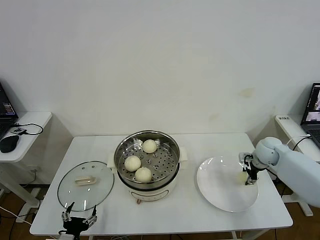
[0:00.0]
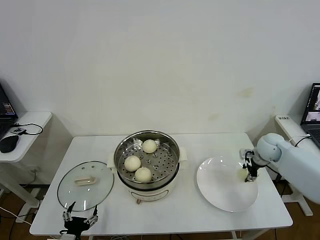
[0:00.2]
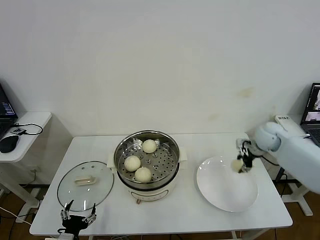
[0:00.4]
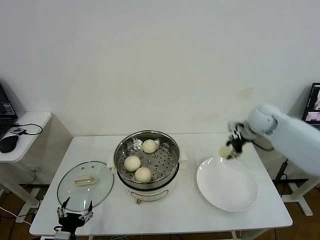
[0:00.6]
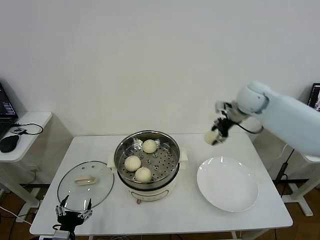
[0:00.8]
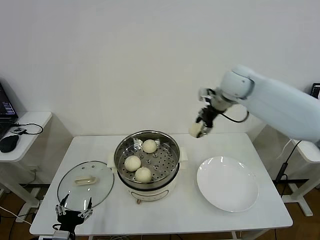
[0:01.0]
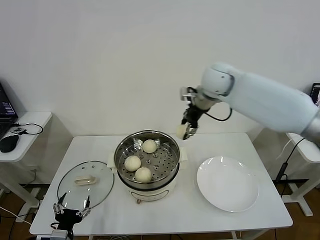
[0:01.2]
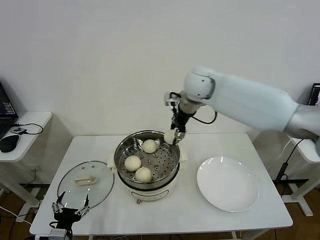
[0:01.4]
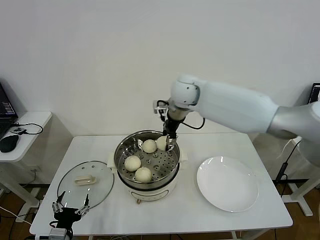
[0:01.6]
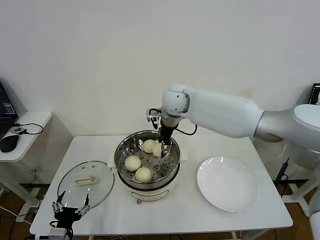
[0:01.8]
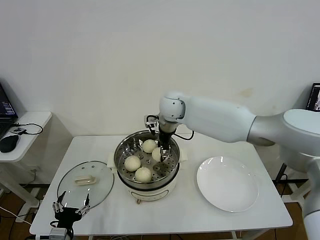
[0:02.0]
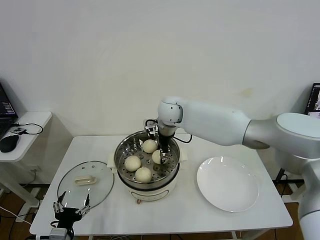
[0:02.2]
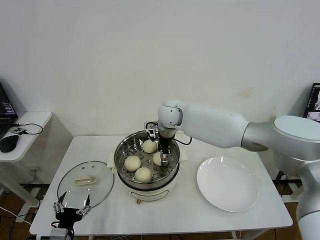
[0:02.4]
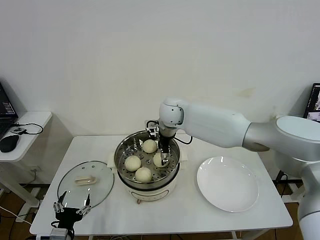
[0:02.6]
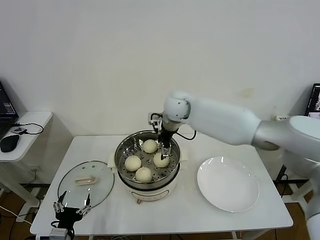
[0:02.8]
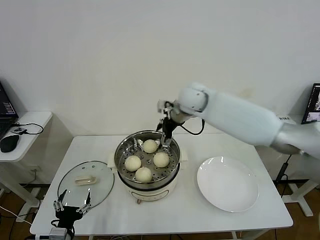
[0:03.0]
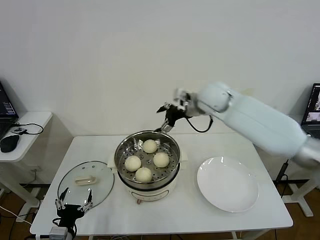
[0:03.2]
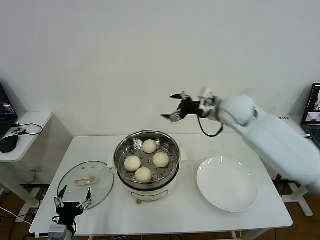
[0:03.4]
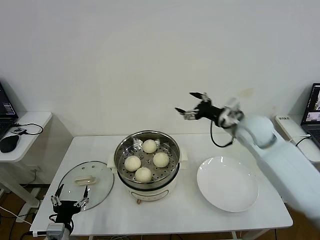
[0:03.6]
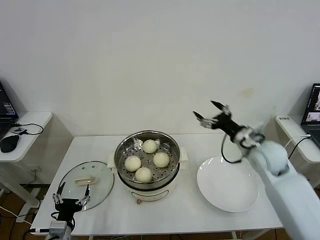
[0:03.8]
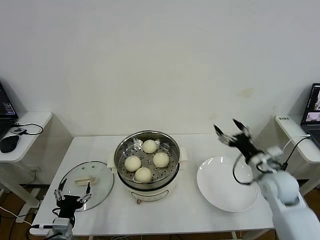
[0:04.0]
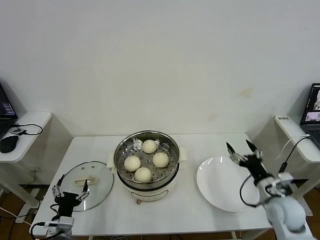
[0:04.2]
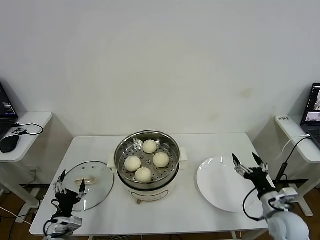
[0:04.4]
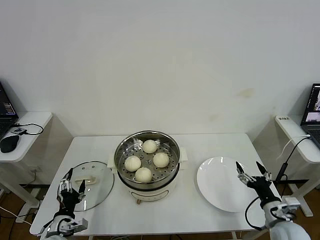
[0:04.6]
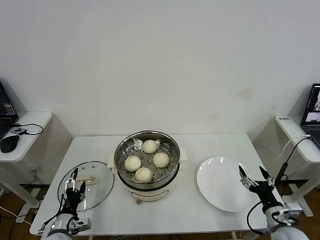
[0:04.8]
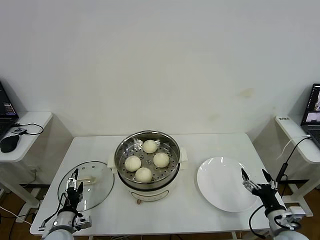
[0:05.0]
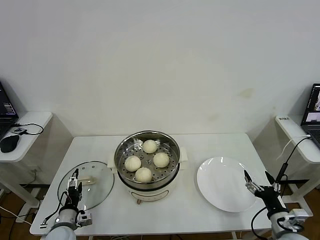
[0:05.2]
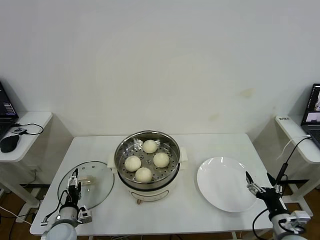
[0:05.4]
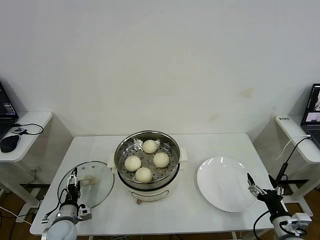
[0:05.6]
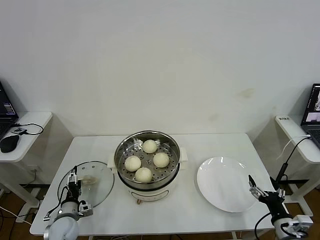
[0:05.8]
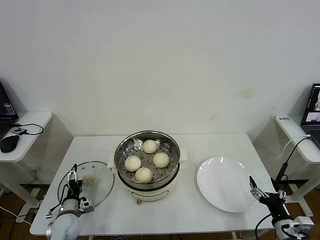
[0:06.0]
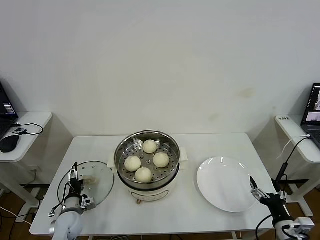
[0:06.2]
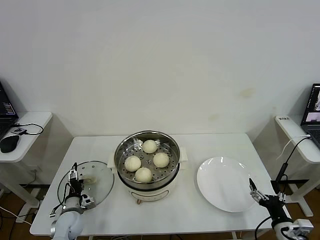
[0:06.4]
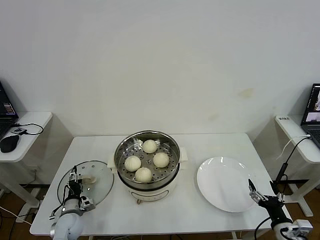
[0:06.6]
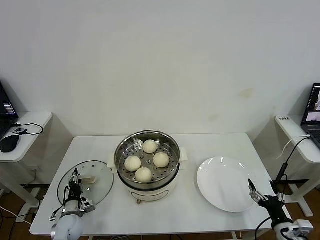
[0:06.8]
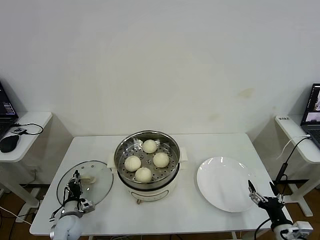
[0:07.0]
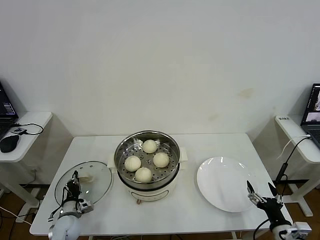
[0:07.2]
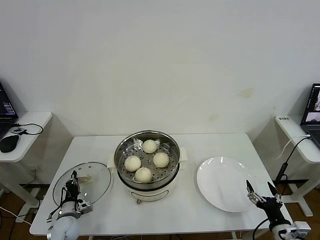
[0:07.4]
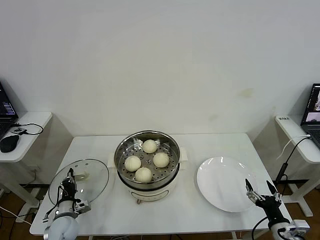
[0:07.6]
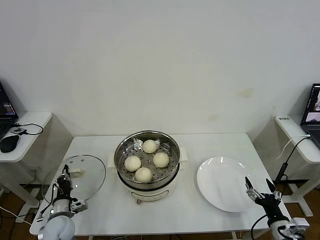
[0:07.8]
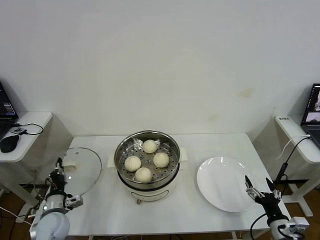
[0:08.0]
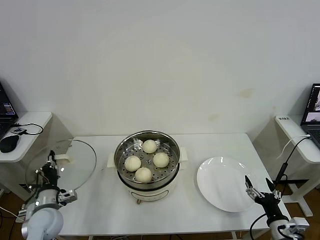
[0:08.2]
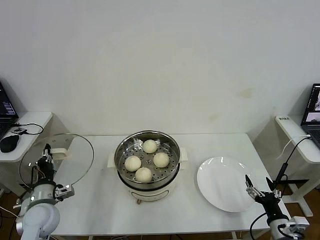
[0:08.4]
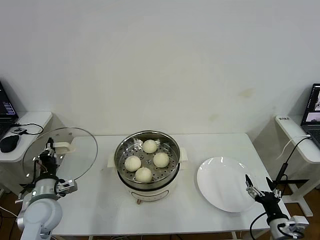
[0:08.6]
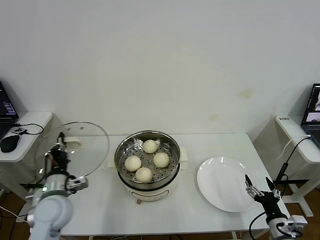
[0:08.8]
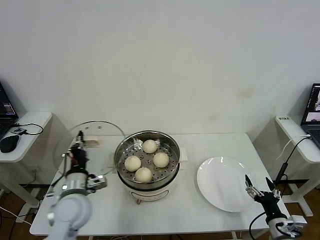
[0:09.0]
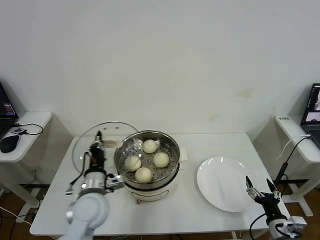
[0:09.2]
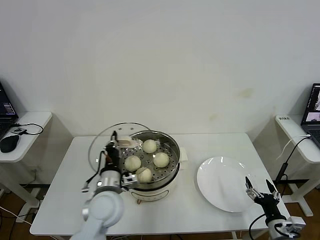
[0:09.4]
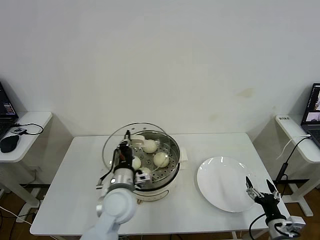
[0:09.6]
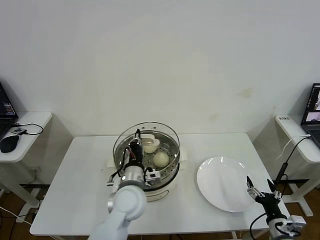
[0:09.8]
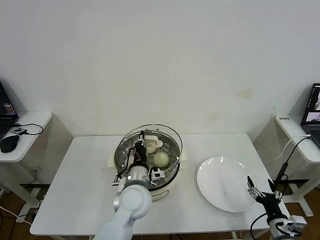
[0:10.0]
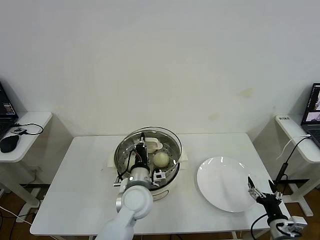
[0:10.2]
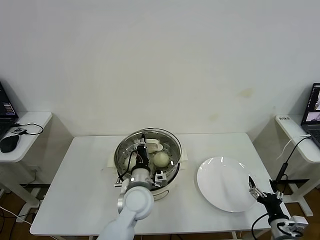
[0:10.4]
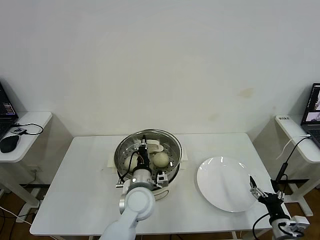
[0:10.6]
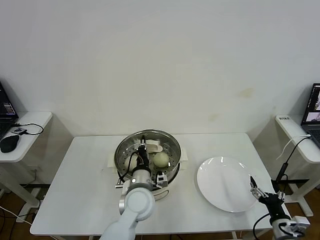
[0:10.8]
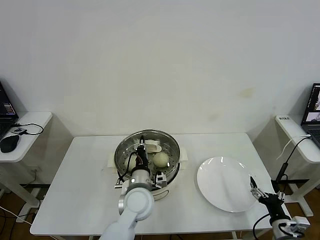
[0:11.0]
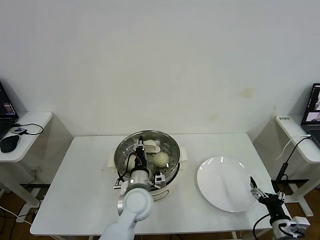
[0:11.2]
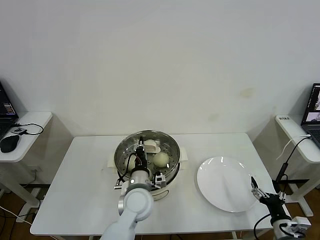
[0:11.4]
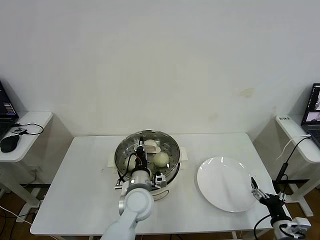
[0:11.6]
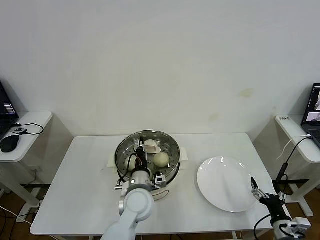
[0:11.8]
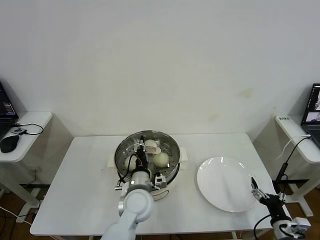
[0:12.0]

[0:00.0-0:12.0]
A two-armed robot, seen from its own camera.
Step, 0:00.0 to 0:02.4: Place the baozi on the steamer with right gripper.
Step, 0:02.6 to 0:07.2: Grasp the pot lid with left gripper.
Step, 0:07.4 to 0:12.0: Place the pot lid on the steamer with left gripper.
0:00.0 to 0:01.6: The right gripper goes roughly 40 cm to the left and upward.
0:01.6 to 0:03.0: The right gripper opens up.
0:03.0 to 0:04.4: The right gripper goes approximately 50 cm backward, to the right and downward. Meanwhile the left gripper shifts by some 5 cm.
0:04.4 to 0:06.0: The right gripper goes some 5 cm backward. Meanwhile the left gripper is displaced forward and downward by some 10 cm.
0:06.0 to 0:07.6: The left gripper closes up.
0:07.6 to 0:09.0: The left gripper moves upward and to the right, roughly 20 cm.
0:09.0 to 0:10.4: The left gripper is displaced to the right by about 20 cm.
0:10.4 to 0:12.0: The grippers stay close to where they were, moving slightly.

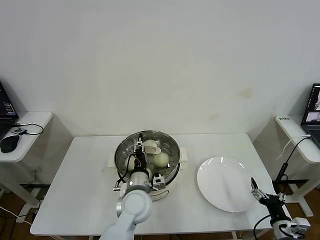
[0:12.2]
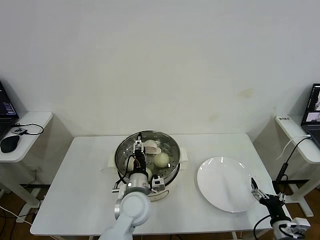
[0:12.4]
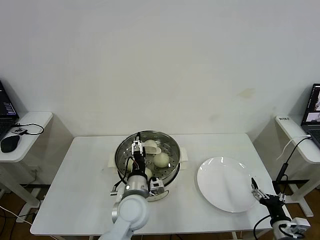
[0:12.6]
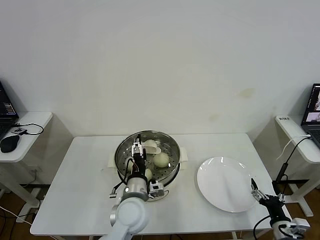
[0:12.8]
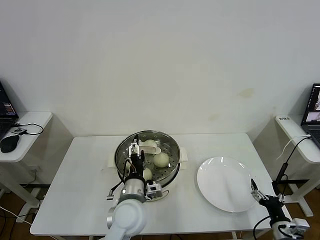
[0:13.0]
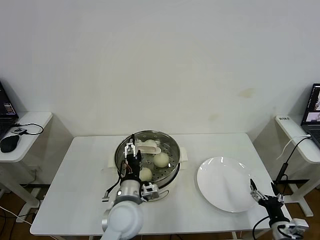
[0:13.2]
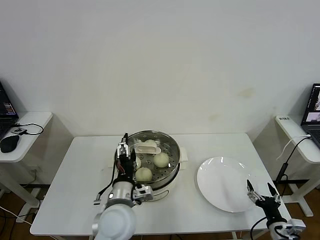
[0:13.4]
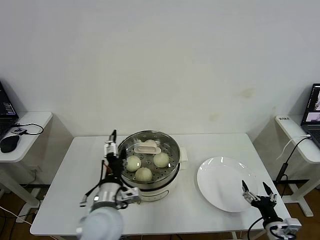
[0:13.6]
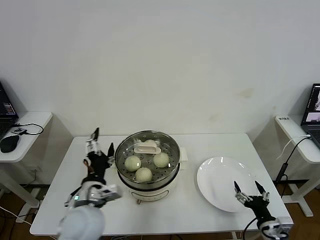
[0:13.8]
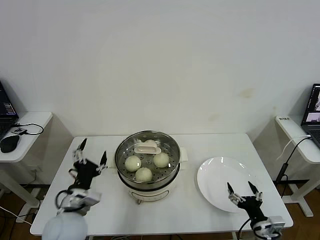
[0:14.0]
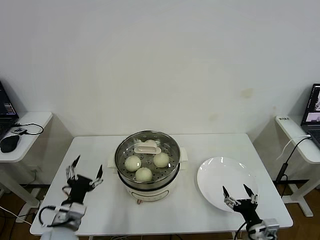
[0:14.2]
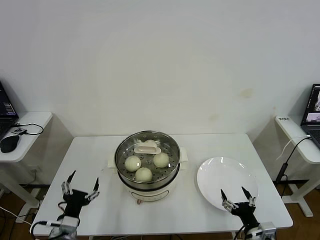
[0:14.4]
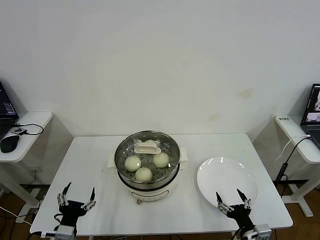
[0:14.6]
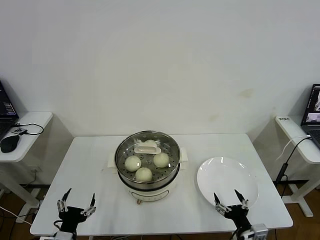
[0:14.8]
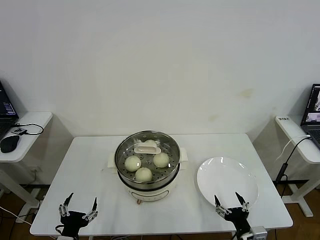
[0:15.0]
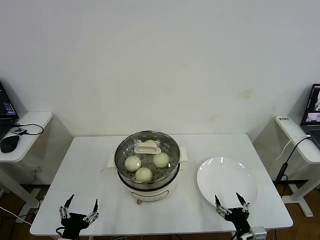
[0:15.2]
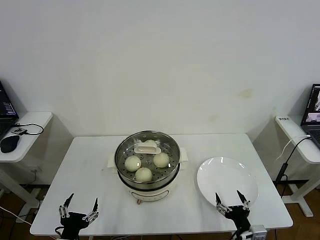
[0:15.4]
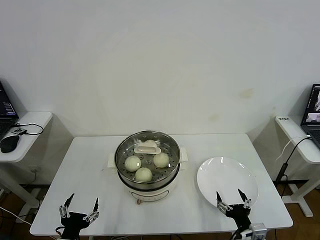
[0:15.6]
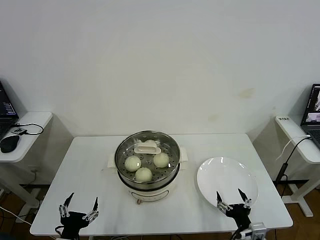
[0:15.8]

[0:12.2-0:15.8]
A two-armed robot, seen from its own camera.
0:12.2 to 0:14.0: The left gripper goes approximately 20 cm to the left and backward, and opens its fingers. The right gripper heads to the left, covering some 5 cm.
0:14.0 to 0:15.8: The right gripper is displaced to the left by some 5 cm; the left gripper travels backward and downward by some 15 cm.

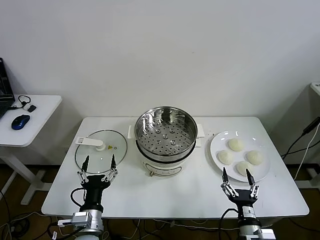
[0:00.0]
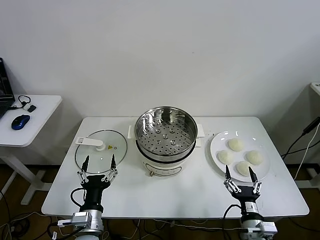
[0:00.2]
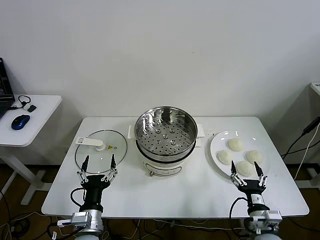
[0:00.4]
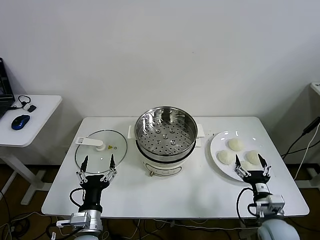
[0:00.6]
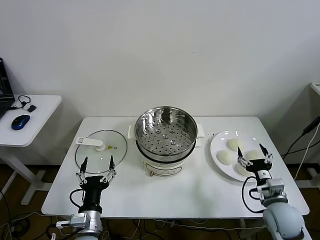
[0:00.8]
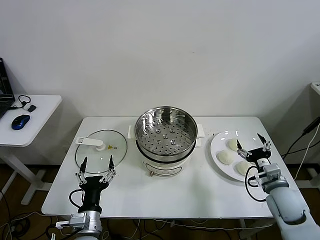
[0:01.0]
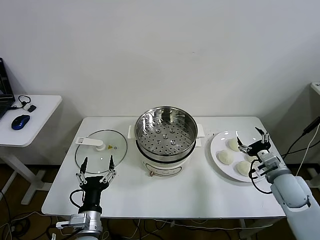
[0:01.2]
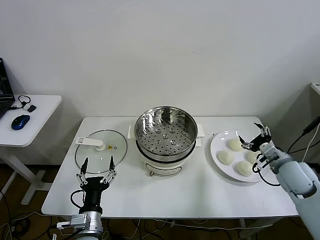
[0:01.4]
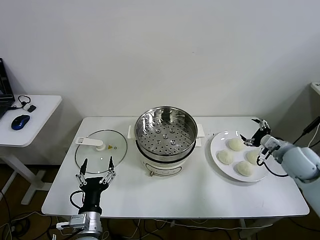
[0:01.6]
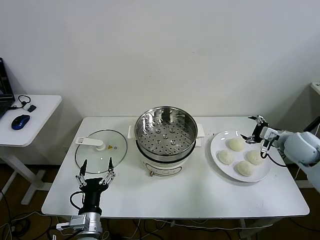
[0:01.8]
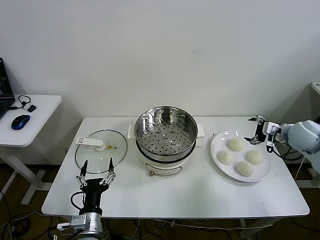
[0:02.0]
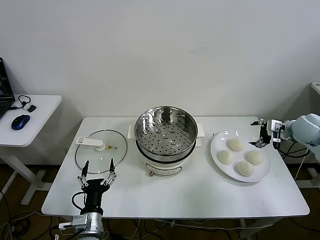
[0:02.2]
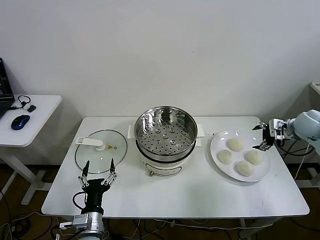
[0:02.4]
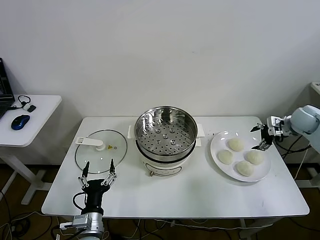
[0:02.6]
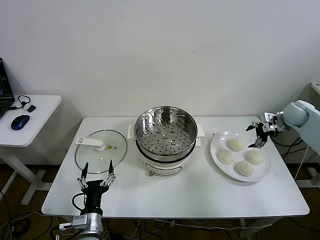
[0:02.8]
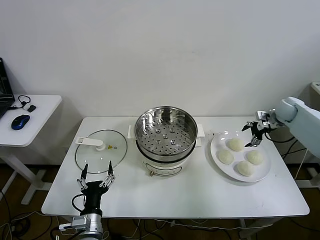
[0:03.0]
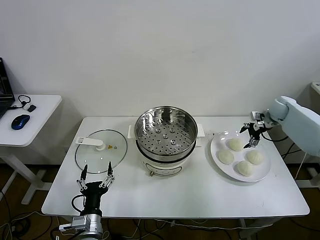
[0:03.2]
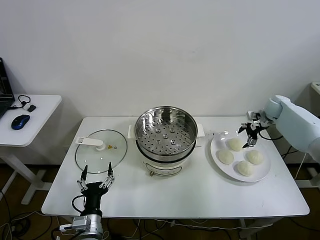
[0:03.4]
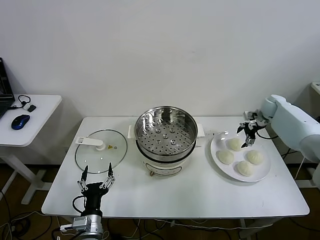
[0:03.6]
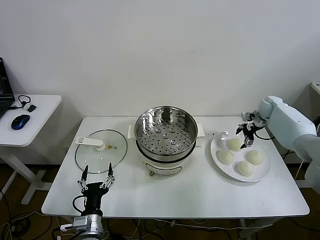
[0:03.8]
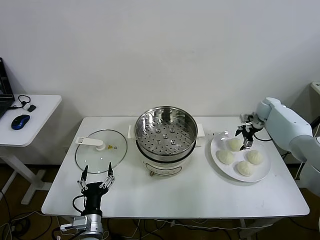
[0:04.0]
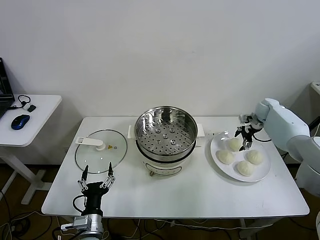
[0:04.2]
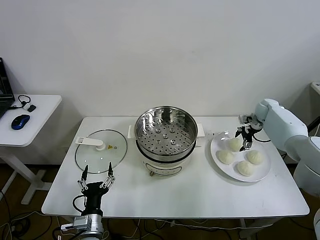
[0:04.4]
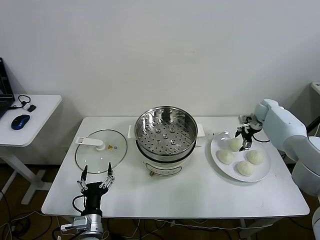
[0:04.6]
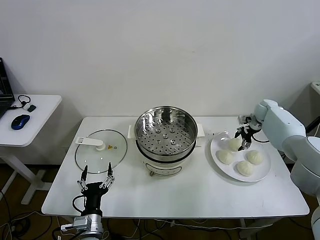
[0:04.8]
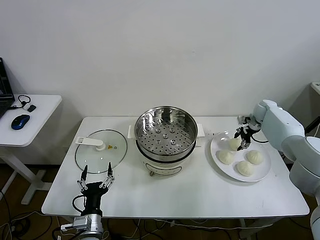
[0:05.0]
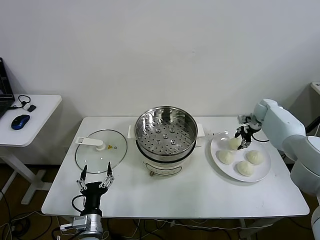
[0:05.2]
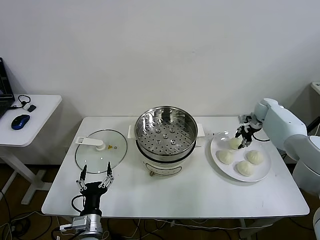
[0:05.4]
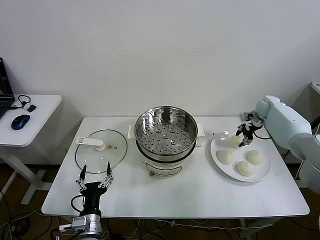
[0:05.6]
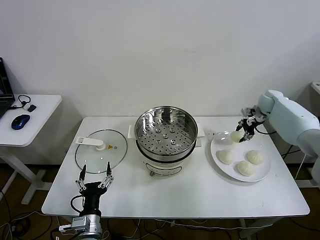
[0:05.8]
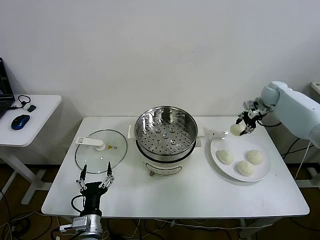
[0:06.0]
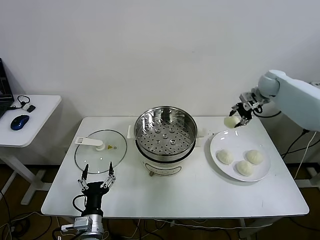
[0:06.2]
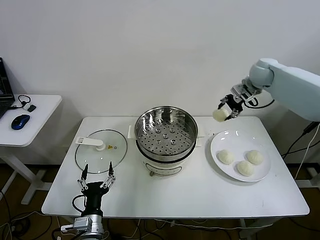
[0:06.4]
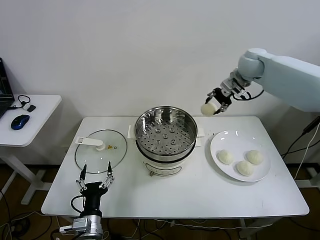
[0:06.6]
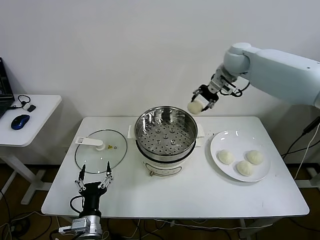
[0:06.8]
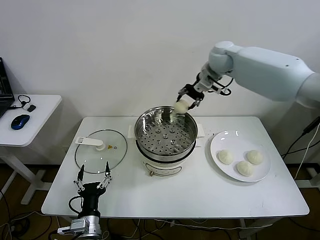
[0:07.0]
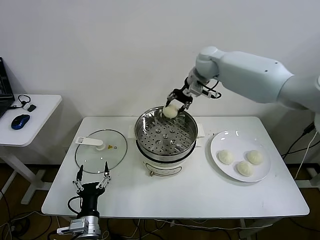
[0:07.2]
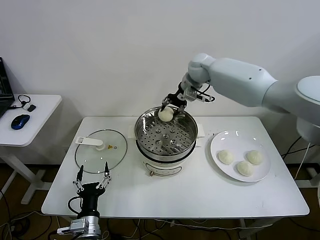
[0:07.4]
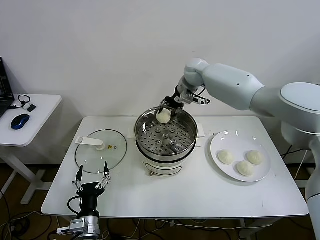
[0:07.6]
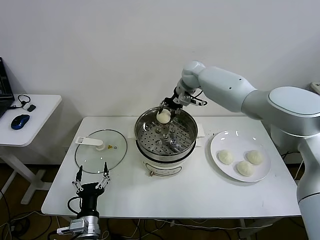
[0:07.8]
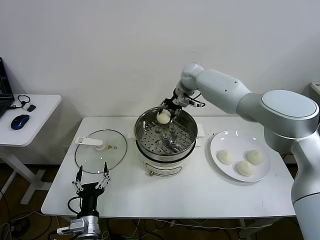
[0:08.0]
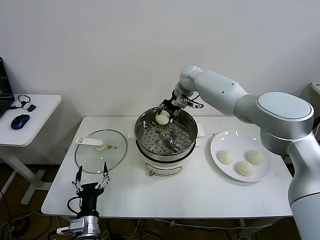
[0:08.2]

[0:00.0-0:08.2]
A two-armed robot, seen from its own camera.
Step, 0:00.0 to 0:05.2: Grasp the baozi in the plate with right gripper.
0:01.6 to 0:03.2: The right gripper moves forward, some 20 cm.
0:03.2 to 0:05.0: The right gripper ends up some 5 cm from where it was, and closes up.
0:05.0 to 0:06.6: The right gripper goes approximately 25 cm upward and to the left.
0:06.6 to 0:08.2: The right gripper shifts approximately 20 cm to the left and downward.
